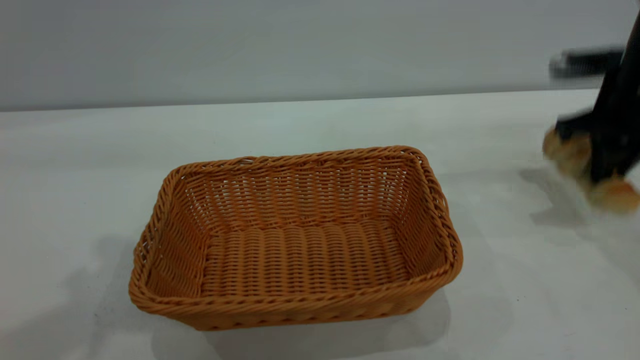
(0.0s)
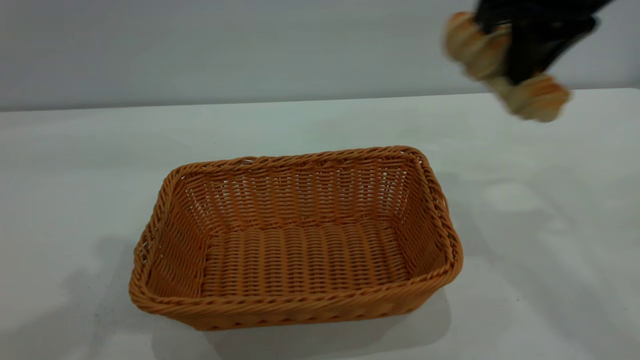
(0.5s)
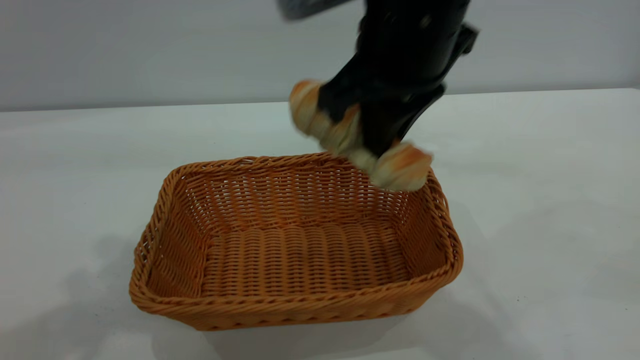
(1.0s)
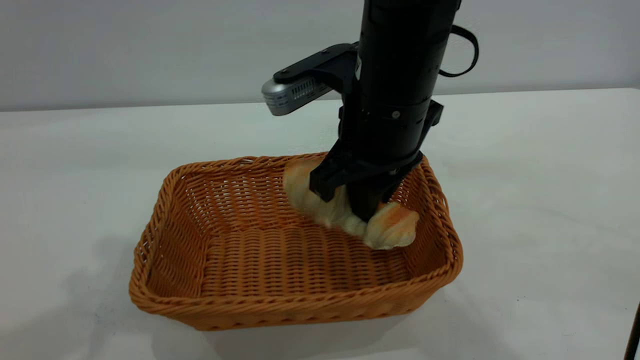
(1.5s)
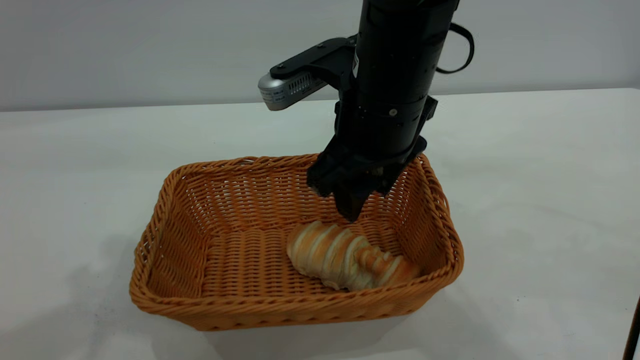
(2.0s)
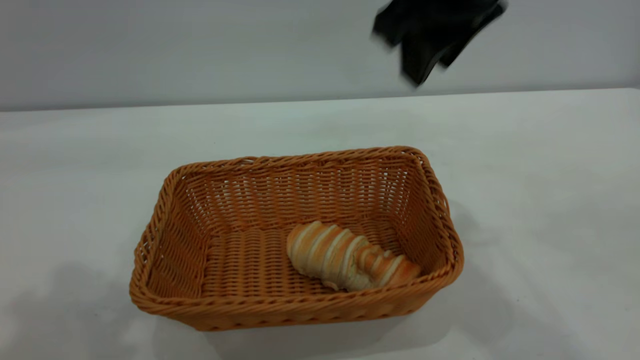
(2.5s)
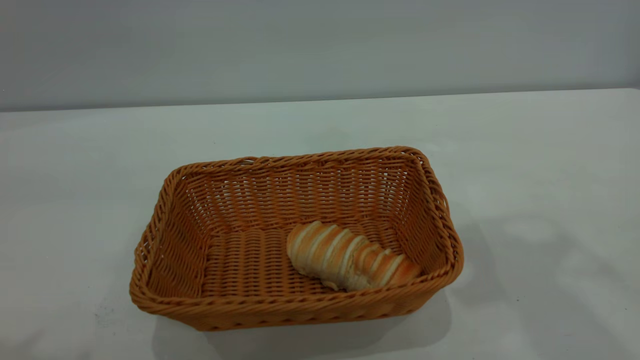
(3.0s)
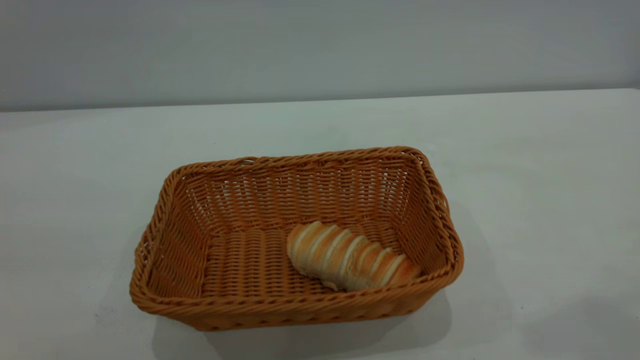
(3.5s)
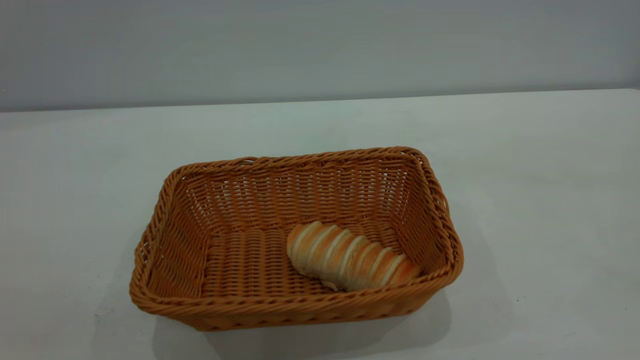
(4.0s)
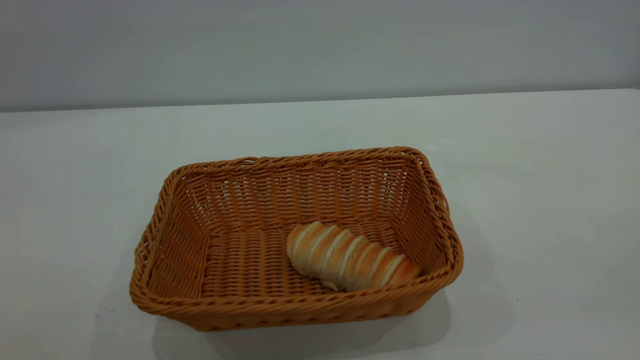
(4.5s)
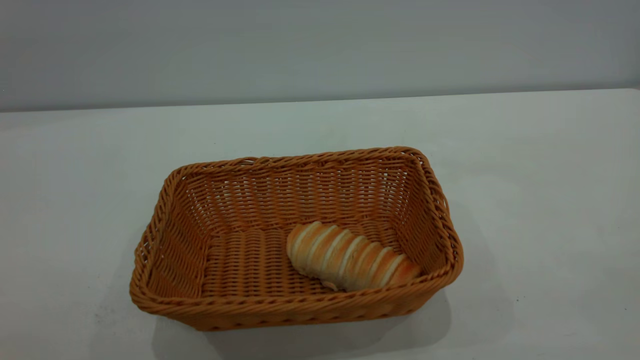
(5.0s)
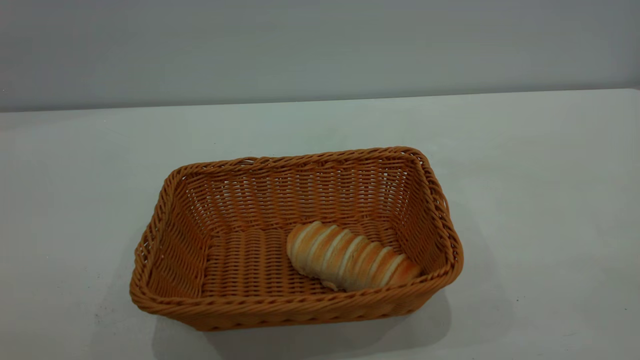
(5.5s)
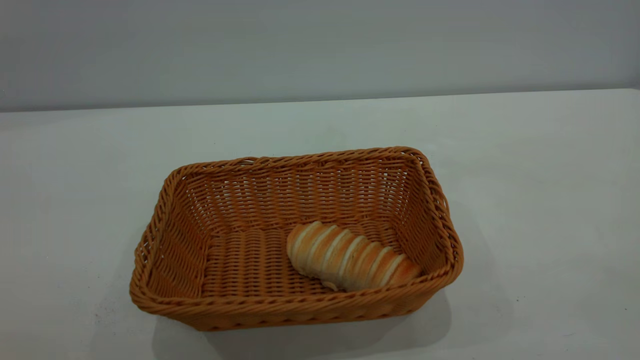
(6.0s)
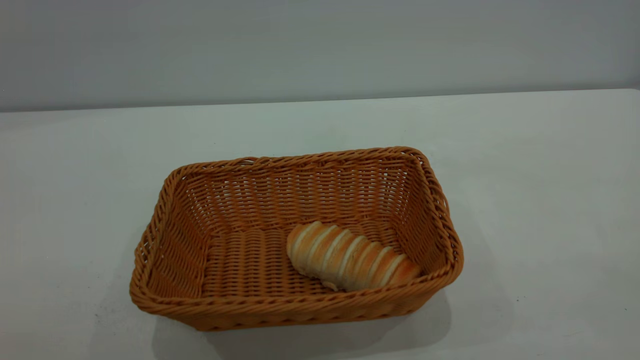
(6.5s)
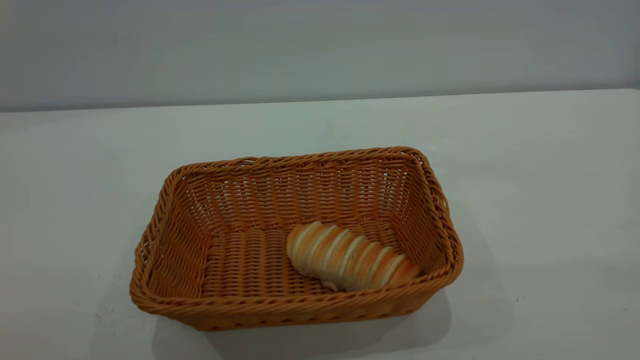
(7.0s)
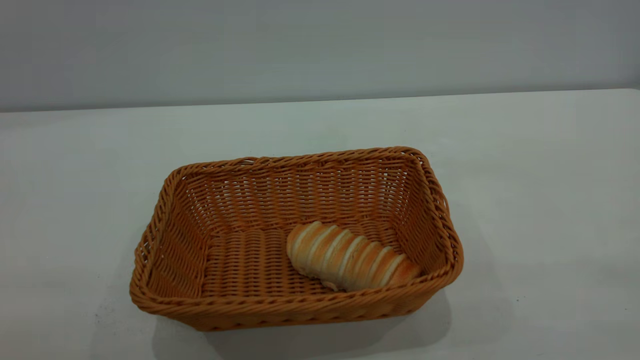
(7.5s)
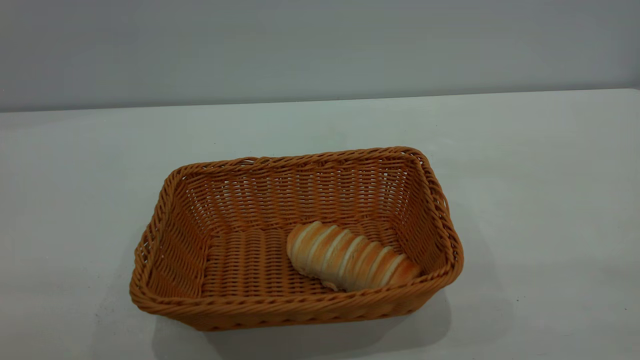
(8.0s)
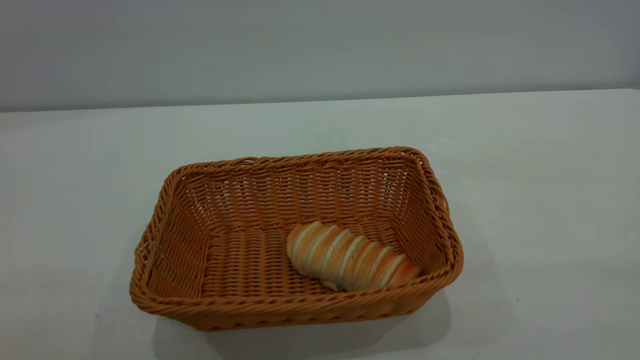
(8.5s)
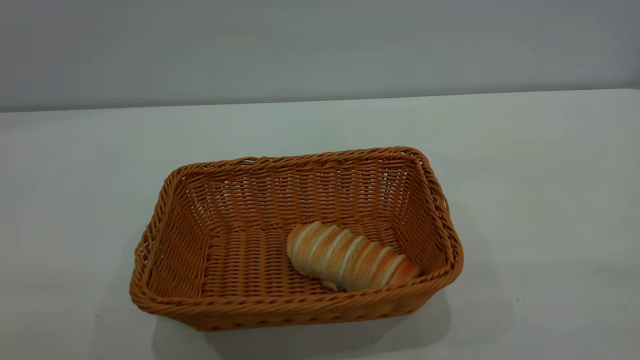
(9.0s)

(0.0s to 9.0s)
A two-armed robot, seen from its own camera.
Task of the whole recording: One hand grasps the yellow basket and places it in the middle of the table, while the other hand picks up the long bread and puts it into the yellow basket.
Step, 0.5s - 2.0s: place the bread into the basket.
0.0s - 2.0s: The right gripper travels to the left by roughly 25 cm, and opens up.
2.0s - 4.5s: The left gripper heads backward, covering roughly 30 cm; the right gripper moves backward, to the right and upward, some 50 cm, and closes.
